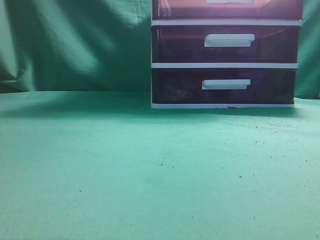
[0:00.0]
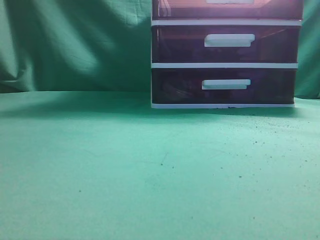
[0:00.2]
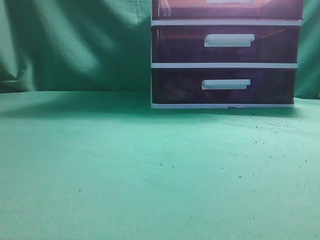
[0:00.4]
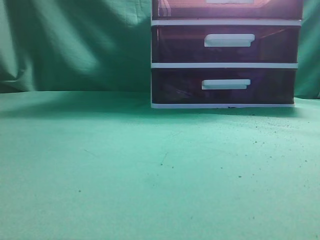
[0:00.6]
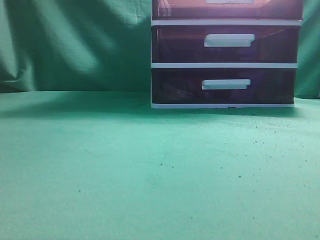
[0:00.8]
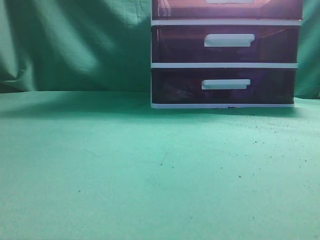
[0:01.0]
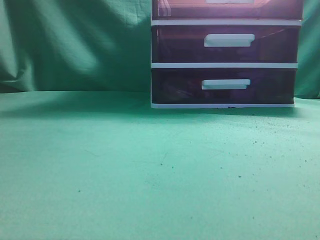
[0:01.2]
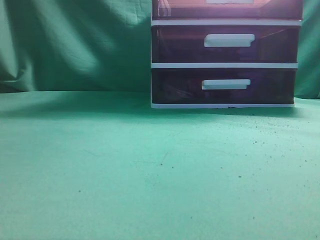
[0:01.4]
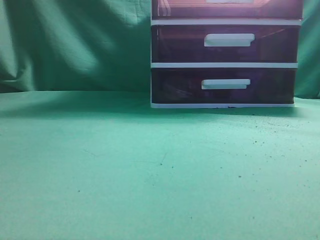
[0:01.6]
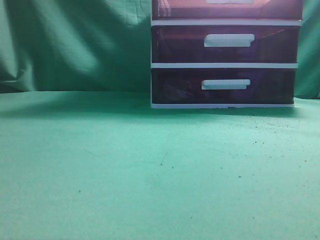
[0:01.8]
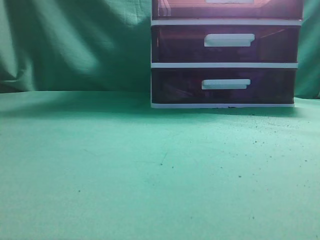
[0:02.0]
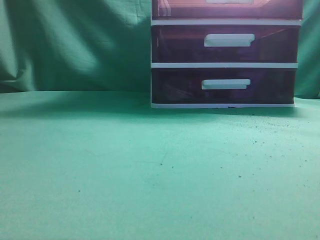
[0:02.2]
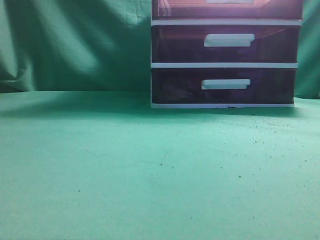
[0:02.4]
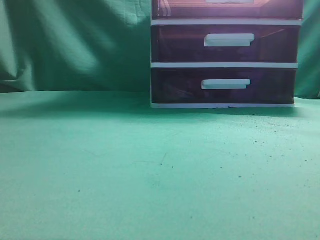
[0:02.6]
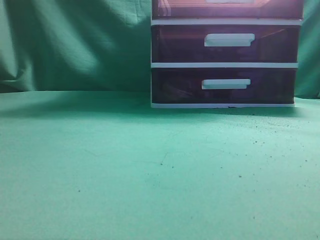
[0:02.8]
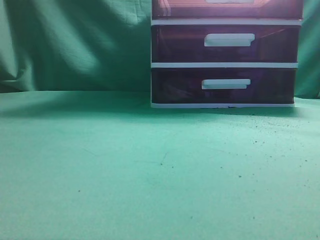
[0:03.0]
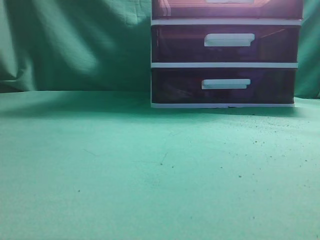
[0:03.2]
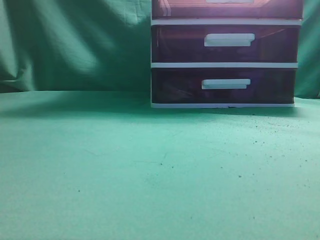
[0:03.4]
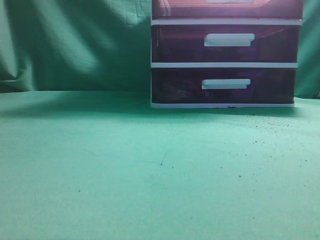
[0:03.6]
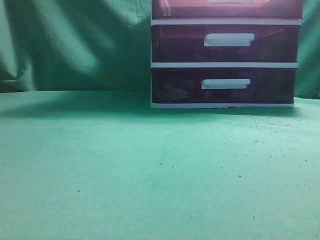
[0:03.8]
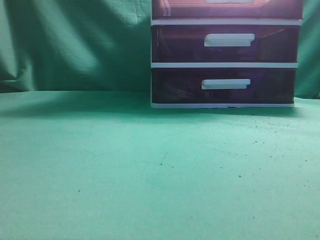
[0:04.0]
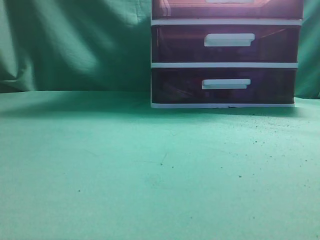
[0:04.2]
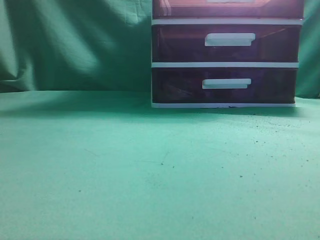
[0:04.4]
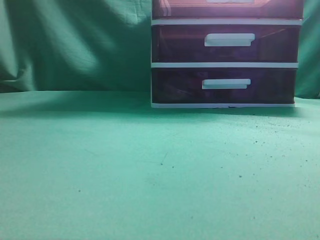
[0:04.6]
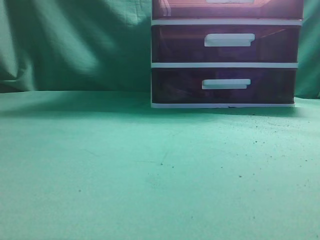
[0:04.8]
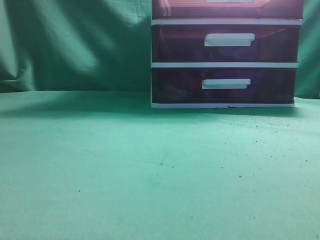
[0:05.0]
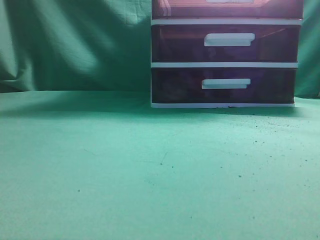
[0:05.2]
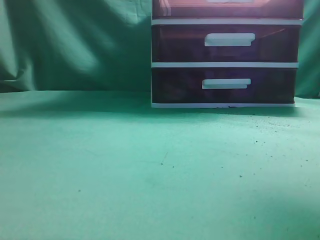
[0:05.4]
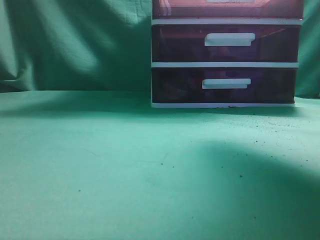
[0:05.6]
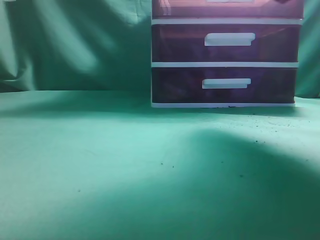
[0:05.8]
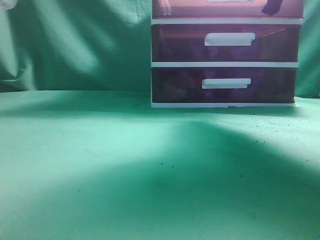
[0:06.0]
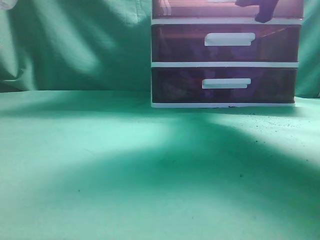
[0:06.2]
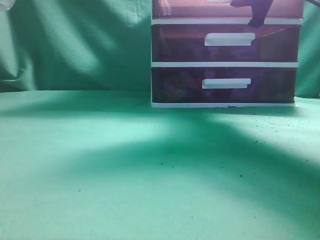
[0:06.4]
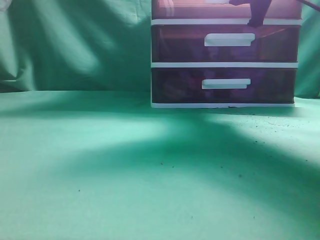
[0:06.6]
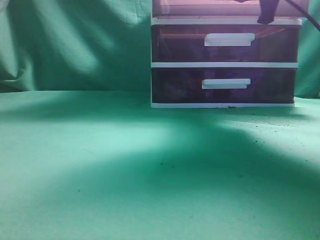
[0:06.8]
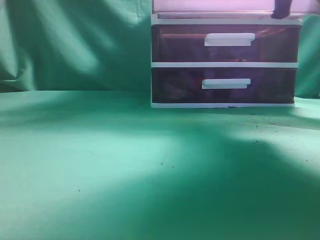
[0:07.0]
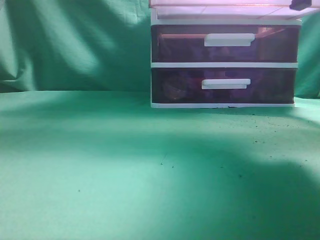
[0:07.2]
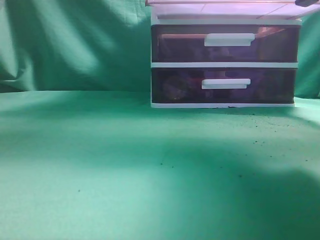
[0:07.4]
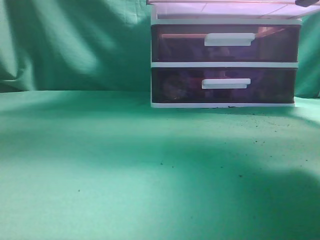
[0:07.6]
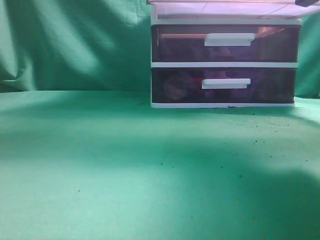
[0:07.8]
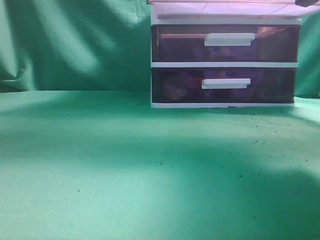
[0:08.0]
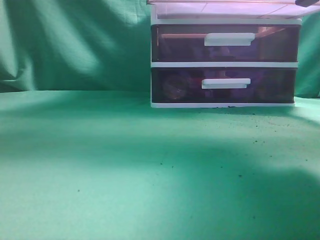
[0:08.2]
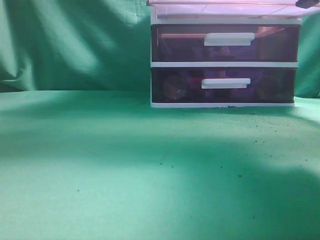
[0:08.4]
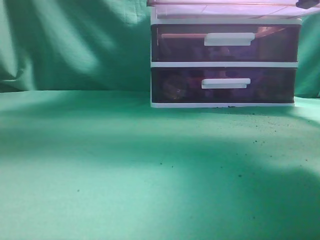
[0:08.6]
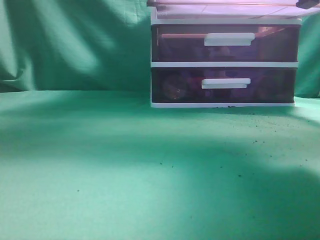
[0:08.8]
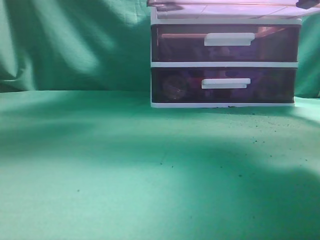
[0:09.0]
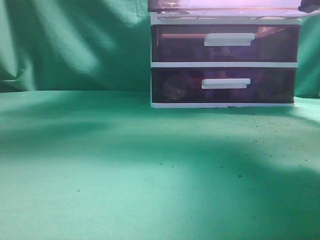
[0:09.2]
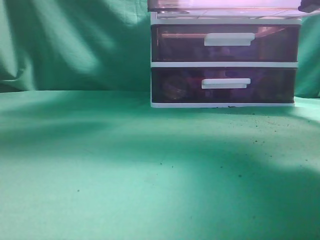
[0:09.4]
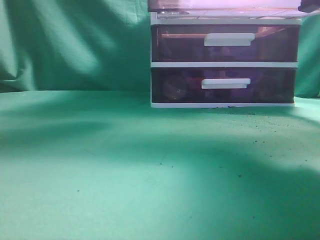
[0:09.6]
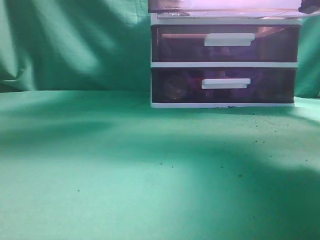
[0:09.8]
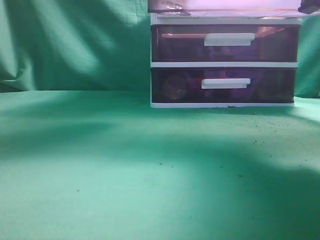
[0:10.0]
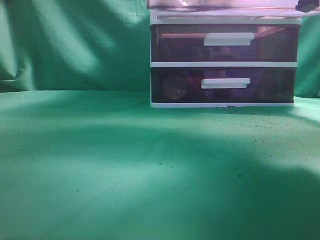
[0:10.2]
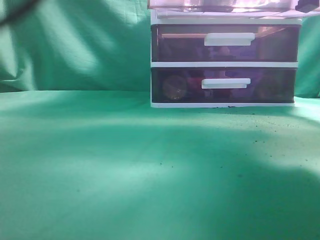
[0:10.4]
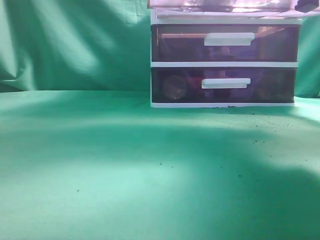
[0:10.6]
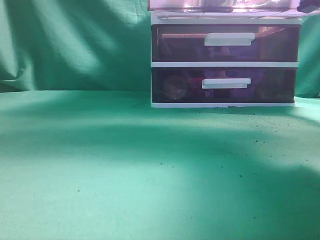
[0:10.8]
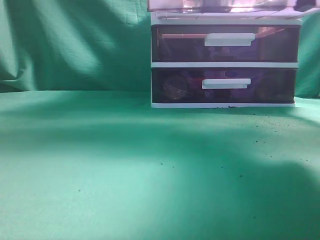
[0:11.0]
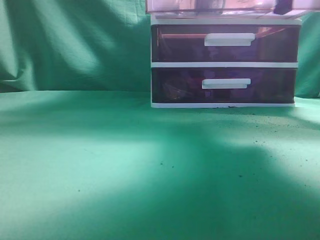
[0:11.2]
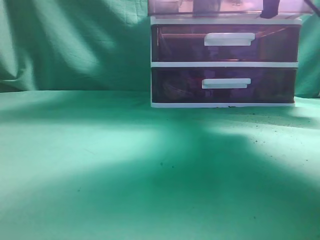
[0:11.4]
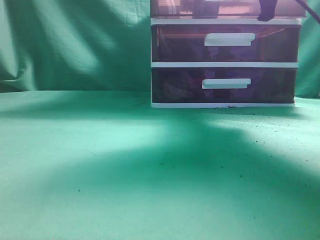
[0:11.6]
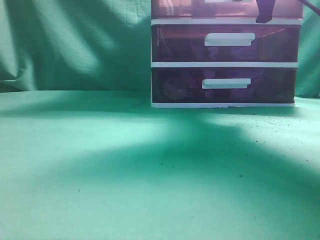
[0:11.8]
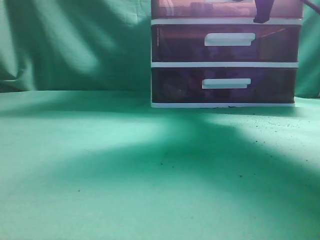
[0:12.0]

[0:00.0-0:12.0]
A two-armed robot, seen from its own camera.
Task of the whole recording: place the water bottle into the drawer.
Step, 0:00.0 to 0:07.6: Open the drawer.
Step, 0:07.8 to 0:10.6: Place the water bottle inside the drawer.
0:04.4 to 0:06.0: The right gripper travels forward by about 30 cm, and opens its fingers.
0:06.0 to 0:07.6: The right gripper heads backward, covering some 10 cm, and closes.
0:07.6 to 0:09.0: The left gripper is displaced forward and to the right by some 25 cm.
0:09.0 to 0:10.4: The left gripper moves to the right and downward, about 10 cm.
0:10.4 to 0:12.0: The right gripper travels forward by approximately 15 cm. Meanwhile the left gripper travels to the left and backward by approximately 30 cm, and closes up.

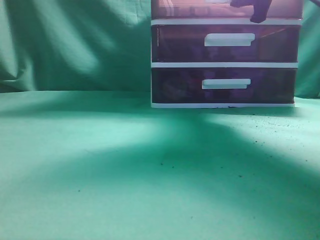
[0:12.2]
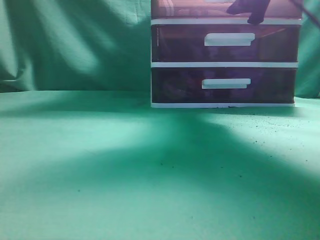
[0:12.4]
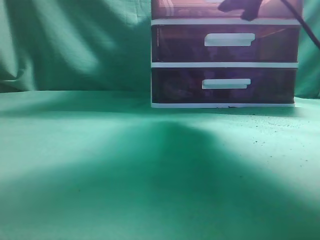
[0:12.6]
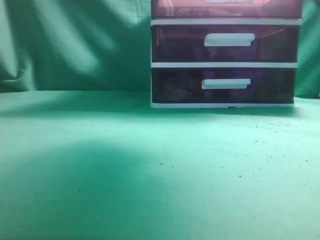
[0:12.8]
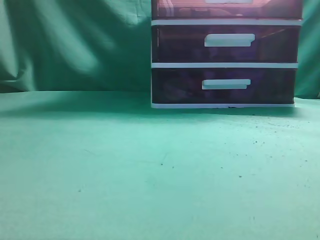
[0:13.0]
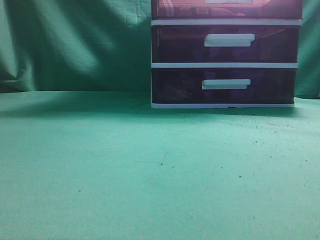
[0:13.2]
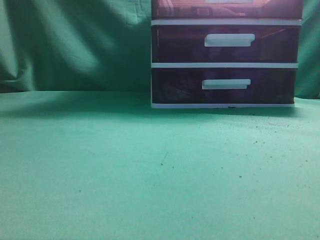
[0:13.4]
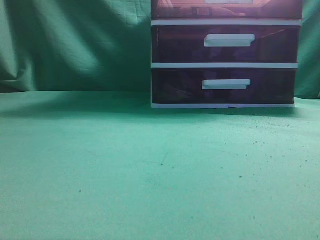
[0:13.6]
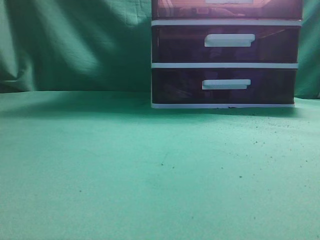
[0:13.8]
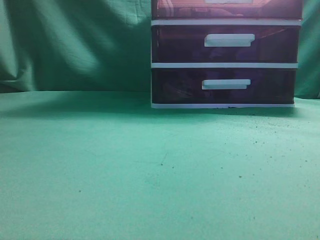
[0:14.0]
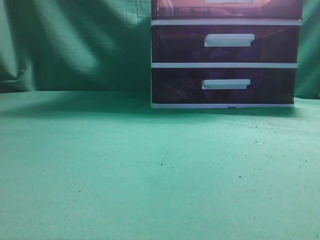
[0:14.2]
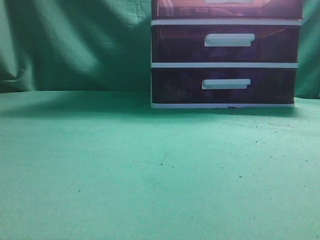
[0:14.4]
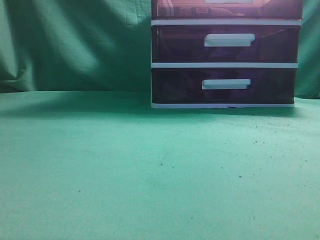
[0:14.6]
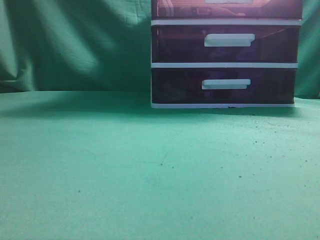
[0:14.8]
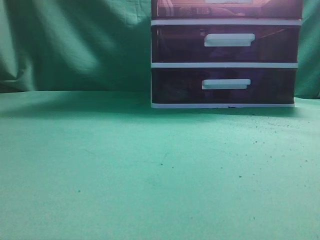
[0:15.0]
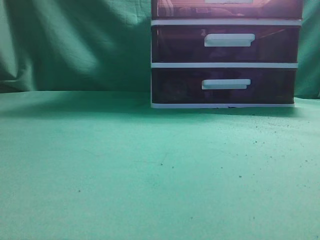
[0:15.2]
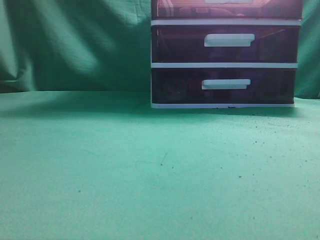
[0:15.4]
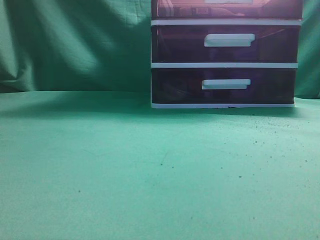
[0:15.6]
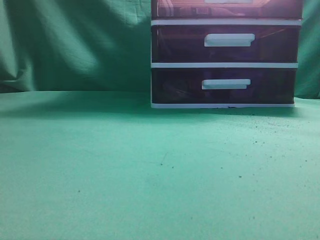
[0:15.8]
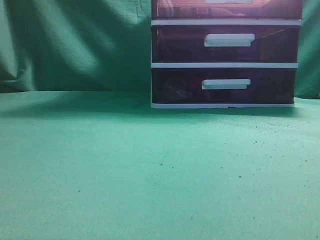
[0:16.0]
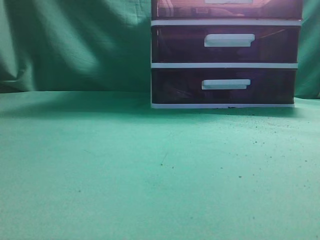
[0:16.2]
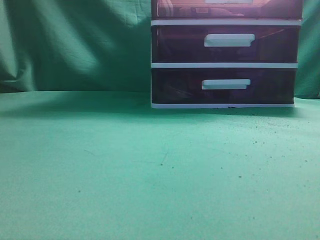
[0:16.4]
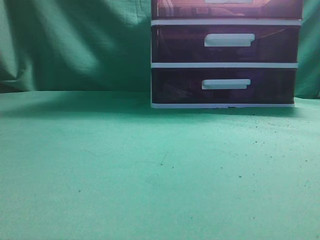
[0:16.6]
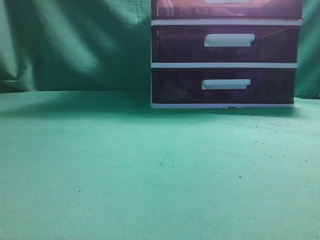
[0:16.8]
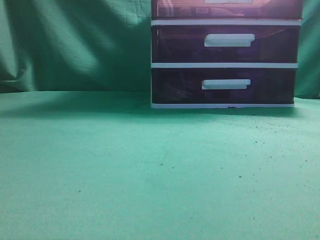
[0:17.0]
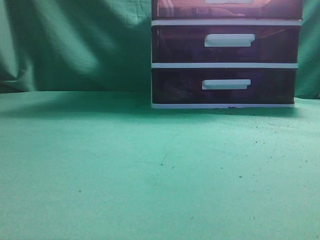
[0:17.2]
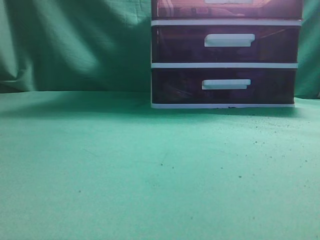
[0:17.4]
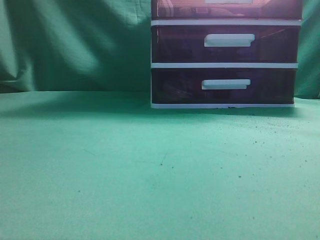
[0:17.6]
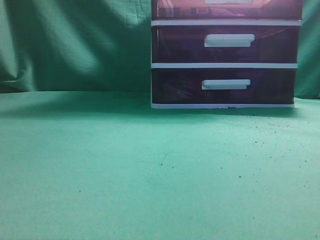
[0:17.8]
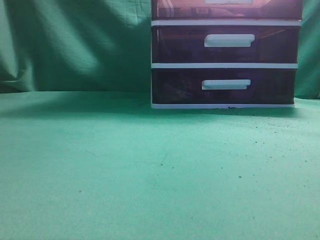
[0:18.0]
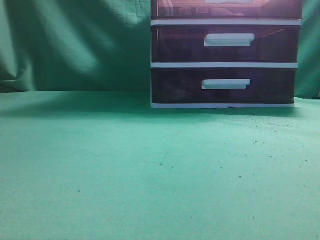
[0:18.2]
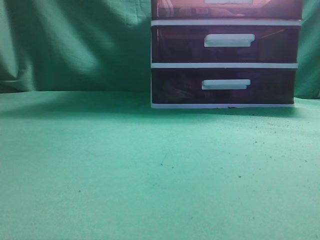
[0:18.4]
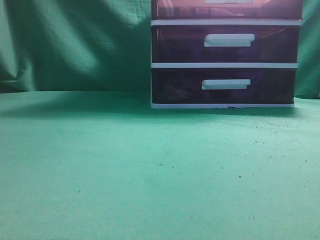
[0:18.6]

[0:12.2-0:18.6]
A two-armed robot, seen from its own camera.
Task of the whole recording: place the water bottle into the drawer.
0:12.2 to 0:13.8: The left gripper shifts approximately 20 cm backward, to the left and downward. Meanwhile the right gripper moves backward and upward, roughly 35 cm, and closes.

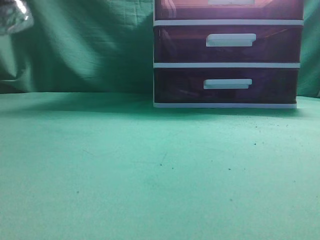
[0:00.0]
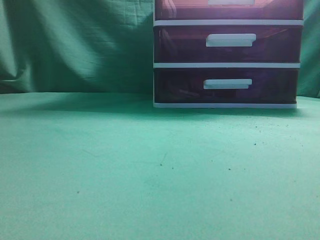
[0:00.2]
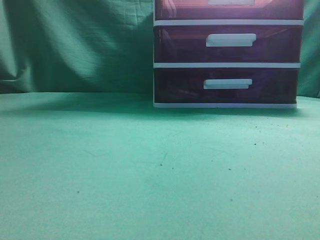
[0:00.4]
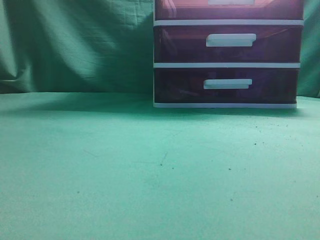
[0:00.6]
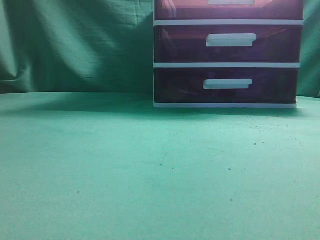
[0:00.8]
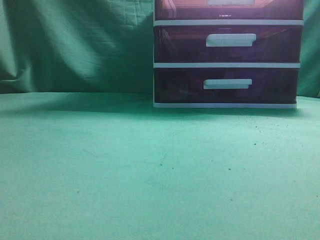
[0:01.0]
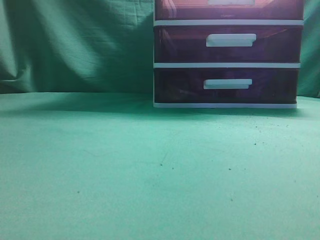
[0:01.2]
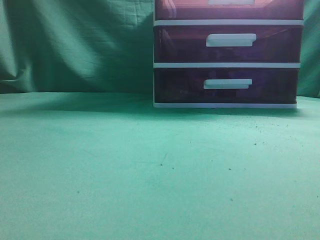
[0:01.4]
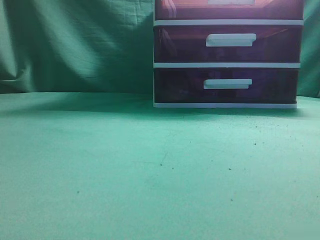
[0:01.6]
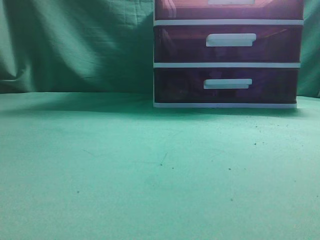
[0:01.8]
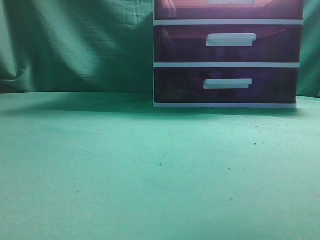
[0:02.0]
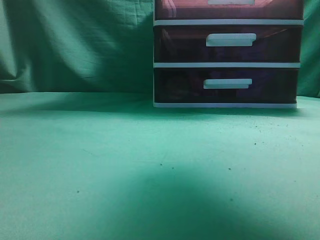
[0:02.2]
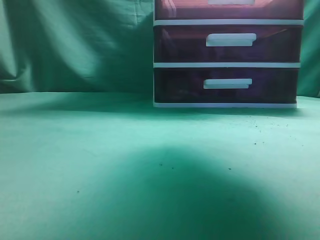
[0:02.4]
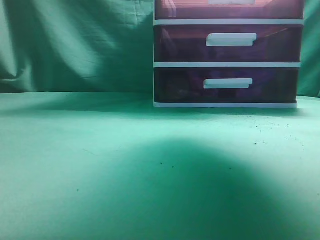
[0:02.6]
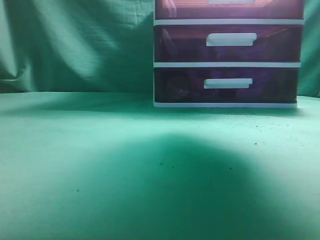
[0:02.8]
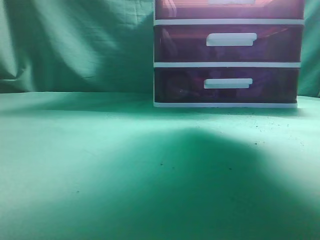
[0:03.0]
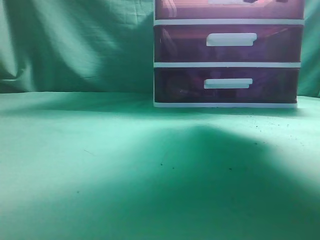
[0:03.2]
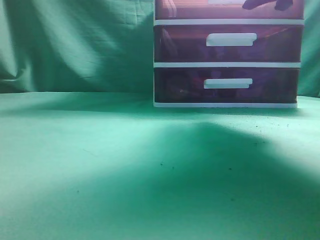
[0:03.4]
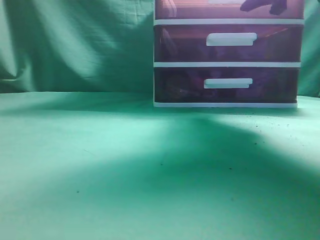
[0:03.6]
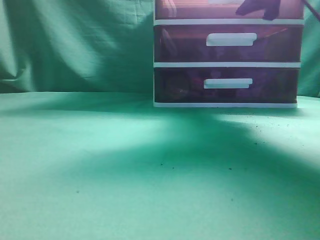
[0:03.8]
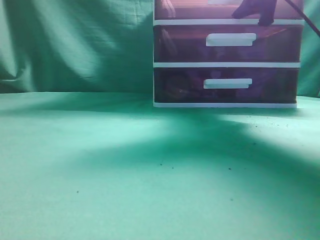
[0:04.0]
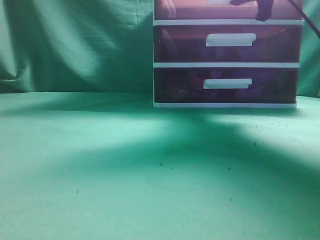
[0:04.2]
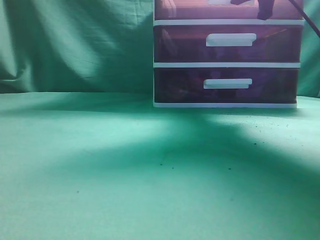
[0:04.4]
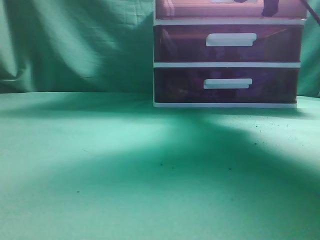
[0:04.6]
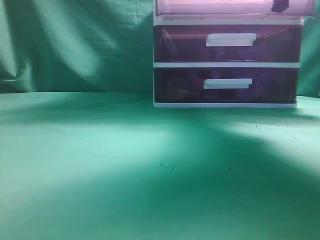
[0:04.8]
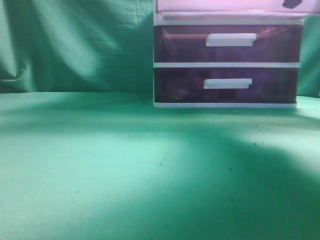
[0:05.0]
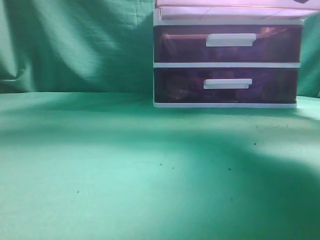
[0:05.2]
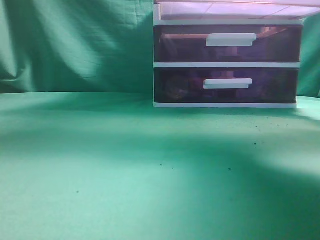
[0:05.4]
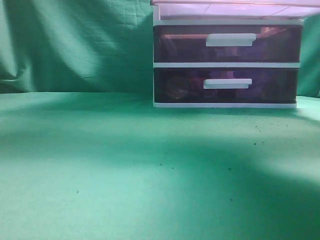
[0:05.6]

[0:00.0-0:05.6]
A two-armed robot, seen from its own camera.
Task of the whole recording: place the water bottle into the drawer.
0:00.0 to 0:01.4: The left gripper travels upward, backward and to the right by approximately 15 cm.
0:01.4 to 0:02.8: The right gripper moves forward, roughly 25 cm, and opens.
0:02.8 to 0:04.2: The right gripper heads forward and downward, covering approximately 10 cm, and closes its fingers.
0:04.2 to 0:05.6: The right gripper moves backward, roughly 15 cm.
